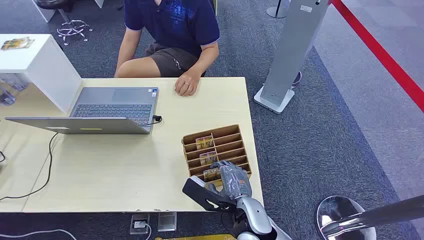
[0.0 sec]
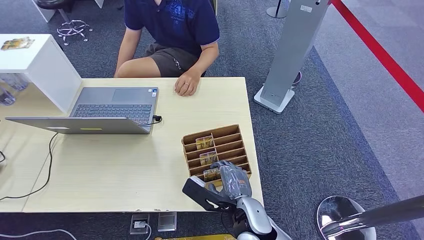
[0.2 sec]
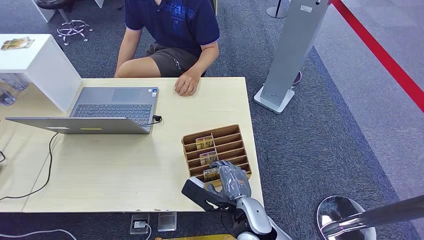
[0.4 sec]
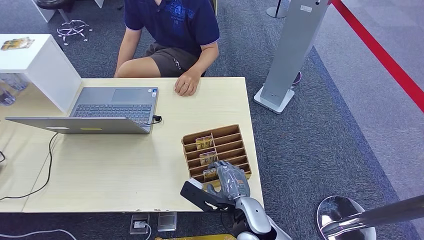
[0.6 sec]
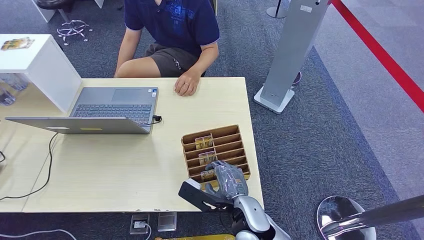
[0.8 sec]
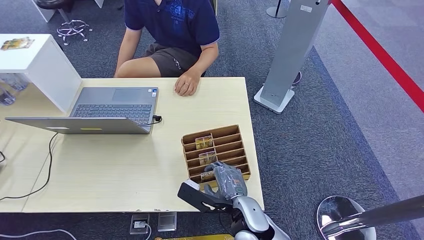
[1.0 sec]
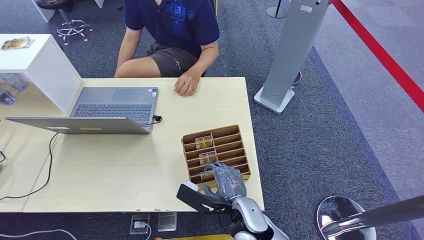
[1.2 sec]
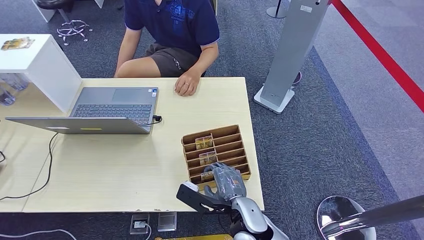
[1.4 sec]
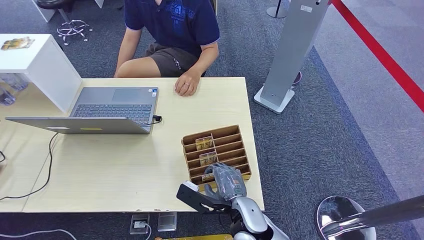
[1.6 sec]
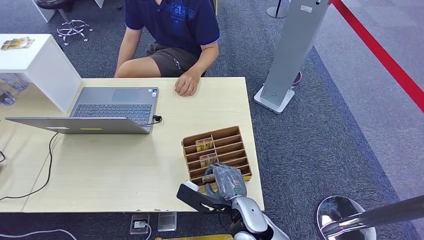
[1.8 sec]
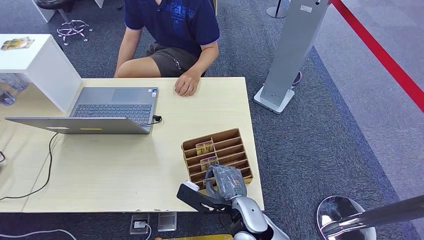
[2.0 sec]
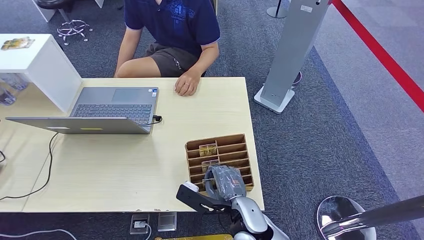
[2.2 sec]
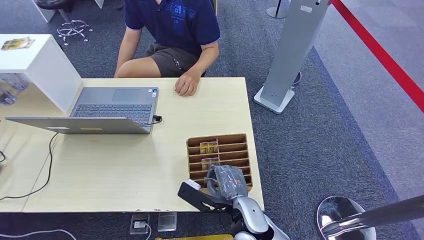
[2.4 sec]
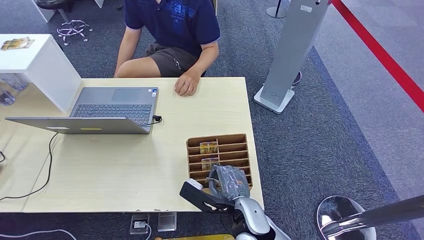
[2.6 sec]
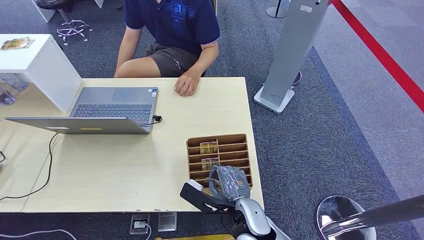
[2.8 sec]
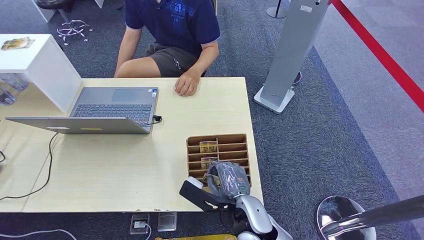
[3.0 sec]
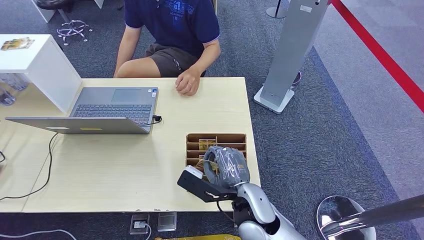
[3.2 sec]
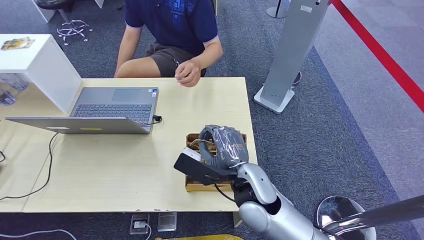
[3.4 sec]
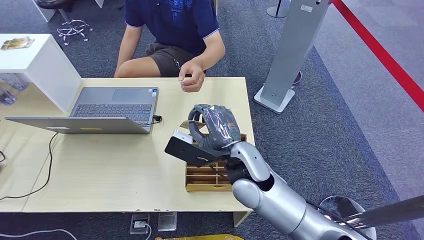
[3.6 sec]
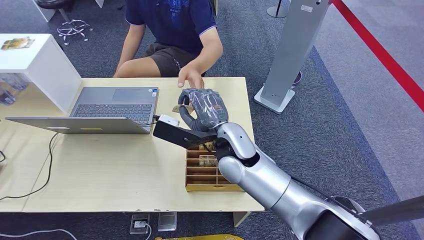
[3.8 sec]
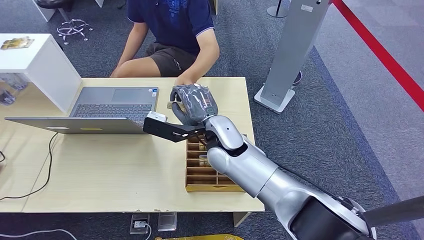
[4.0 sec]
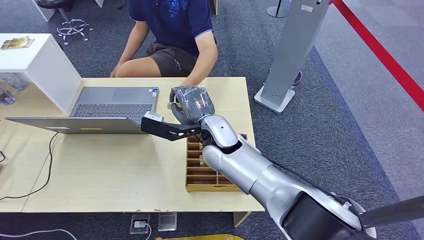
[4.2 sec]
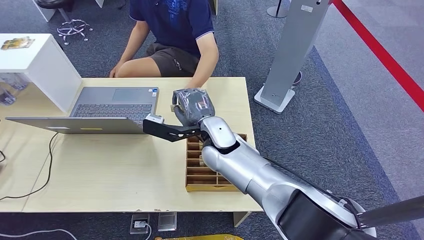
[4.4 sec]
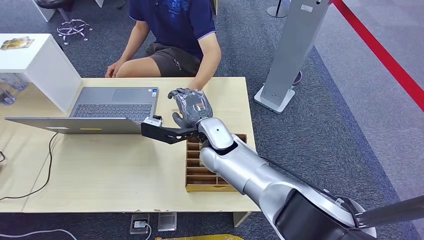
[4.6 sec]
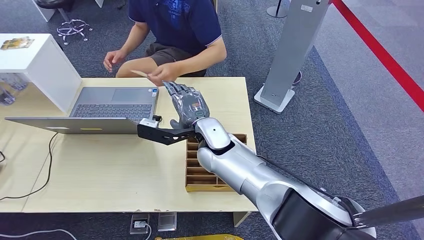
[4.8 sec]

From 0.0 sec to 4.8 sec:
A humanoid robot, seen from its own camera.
Step, from 0.0 sec to 3.2 sec: Pick up the key card from the card box.
Step, from 3.6 sec to 4.8 sec: Hand the key card to the target.
From 1.6 sec to 3.2 sec: The right hand changes place by approximately 5 cm.
From 3.2 sec to 4.8 sec: The right hand moves forward, to the left and upward, about 20 cm.
